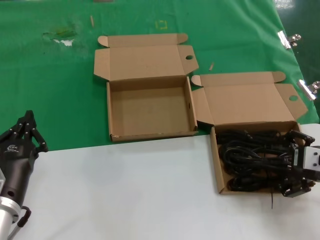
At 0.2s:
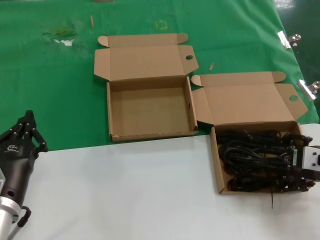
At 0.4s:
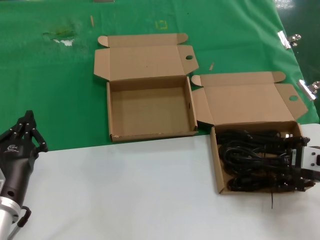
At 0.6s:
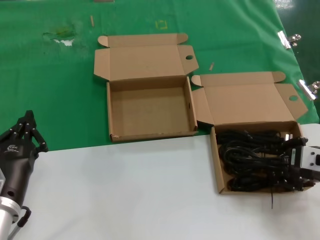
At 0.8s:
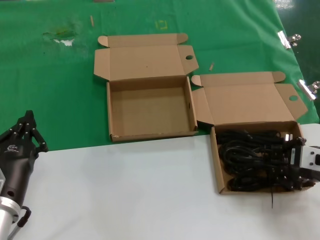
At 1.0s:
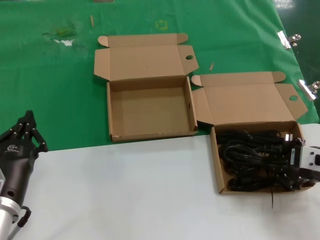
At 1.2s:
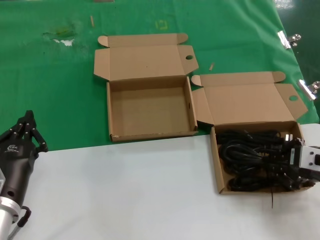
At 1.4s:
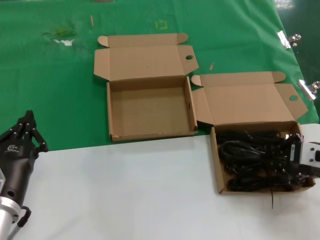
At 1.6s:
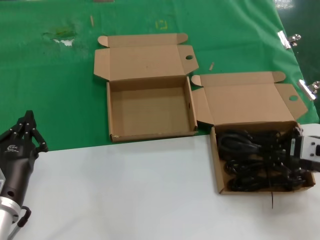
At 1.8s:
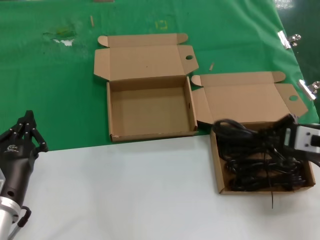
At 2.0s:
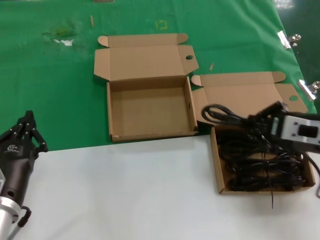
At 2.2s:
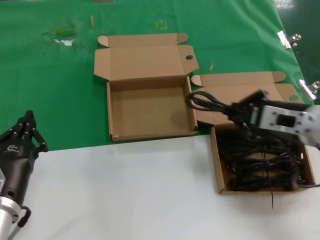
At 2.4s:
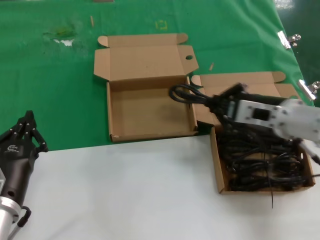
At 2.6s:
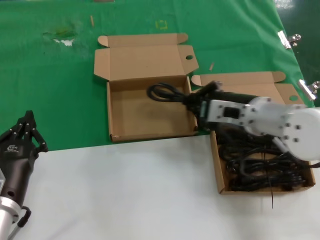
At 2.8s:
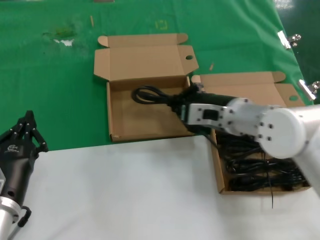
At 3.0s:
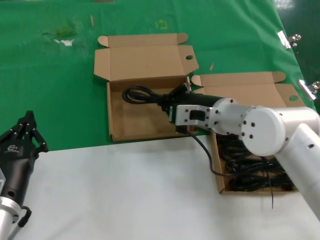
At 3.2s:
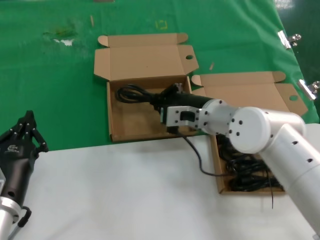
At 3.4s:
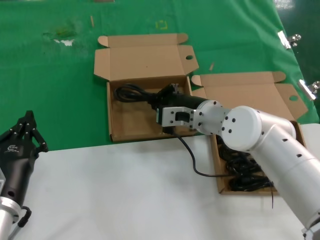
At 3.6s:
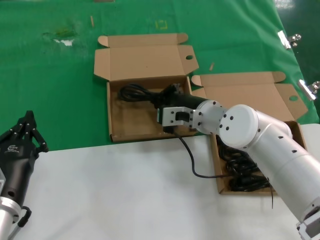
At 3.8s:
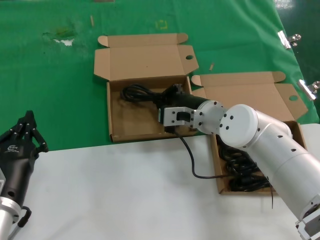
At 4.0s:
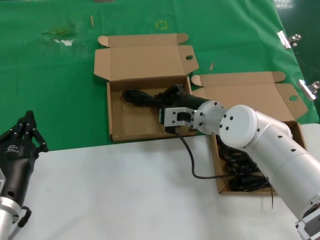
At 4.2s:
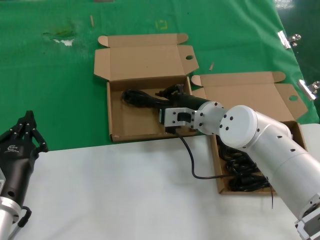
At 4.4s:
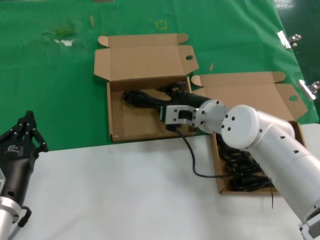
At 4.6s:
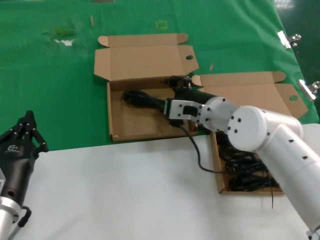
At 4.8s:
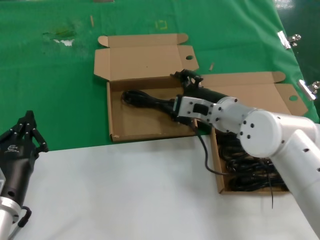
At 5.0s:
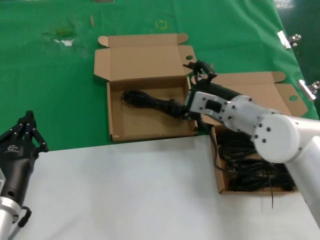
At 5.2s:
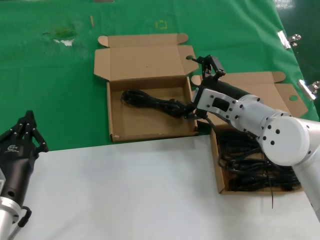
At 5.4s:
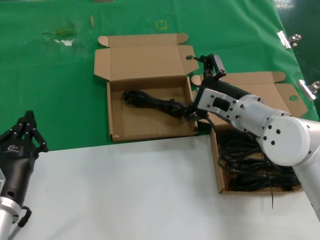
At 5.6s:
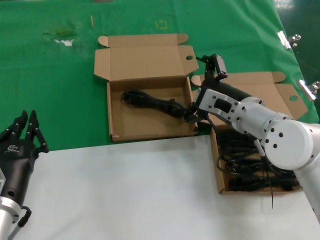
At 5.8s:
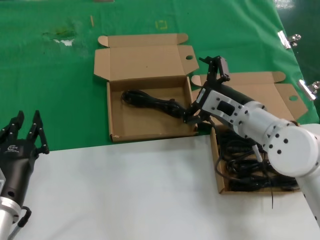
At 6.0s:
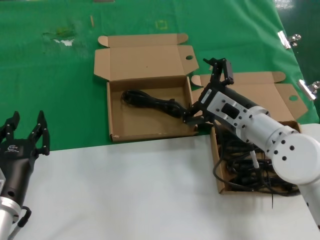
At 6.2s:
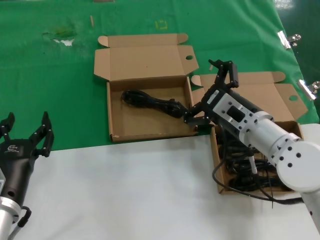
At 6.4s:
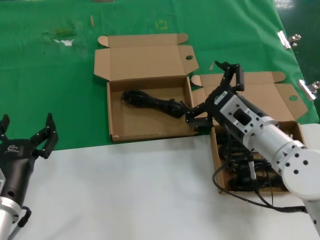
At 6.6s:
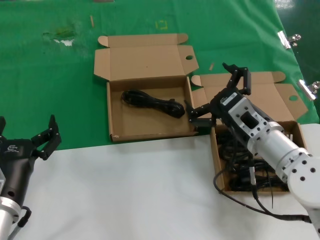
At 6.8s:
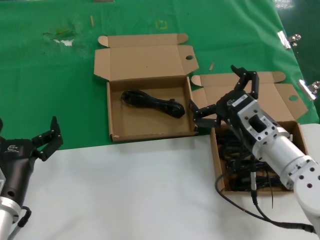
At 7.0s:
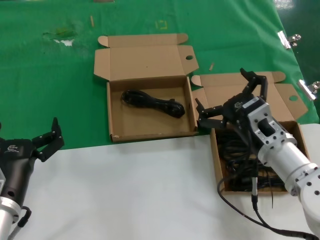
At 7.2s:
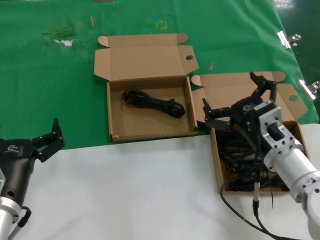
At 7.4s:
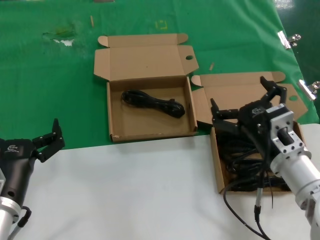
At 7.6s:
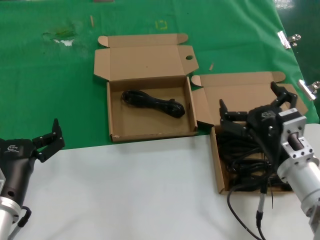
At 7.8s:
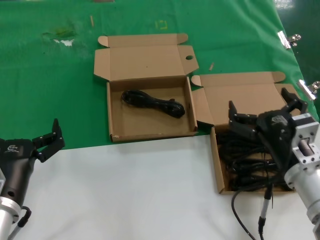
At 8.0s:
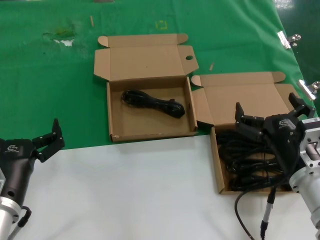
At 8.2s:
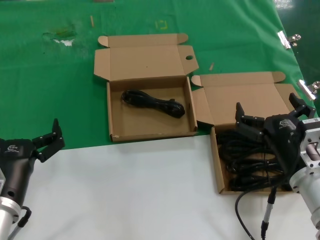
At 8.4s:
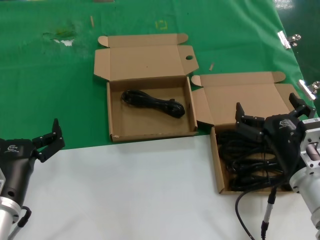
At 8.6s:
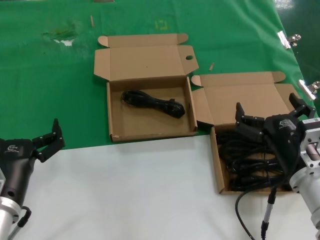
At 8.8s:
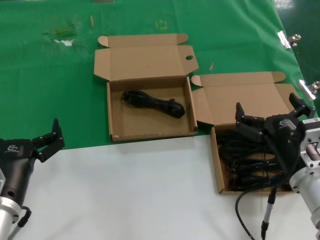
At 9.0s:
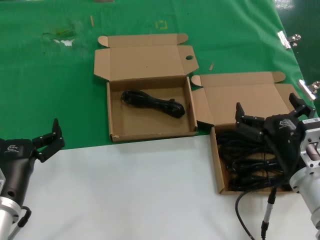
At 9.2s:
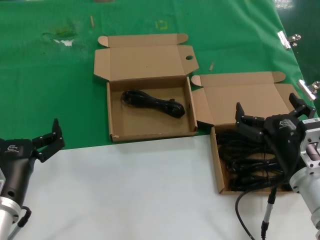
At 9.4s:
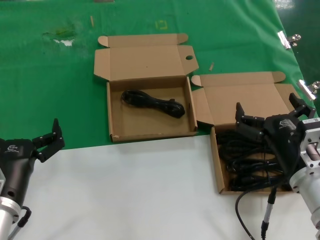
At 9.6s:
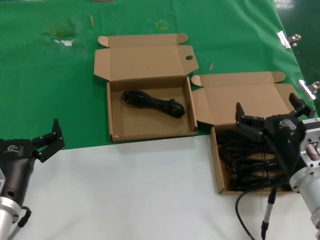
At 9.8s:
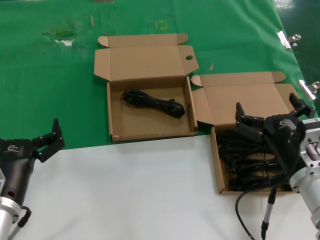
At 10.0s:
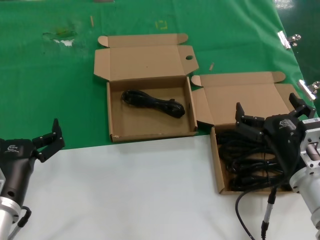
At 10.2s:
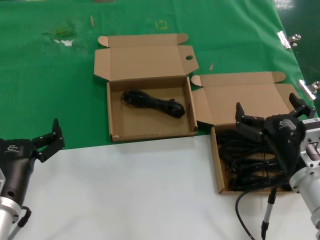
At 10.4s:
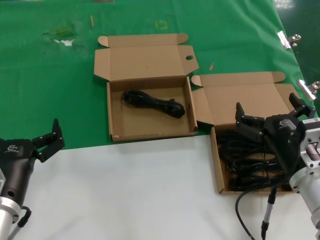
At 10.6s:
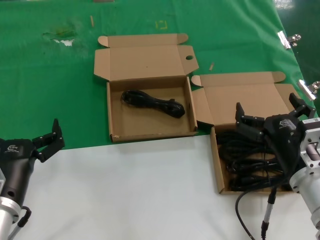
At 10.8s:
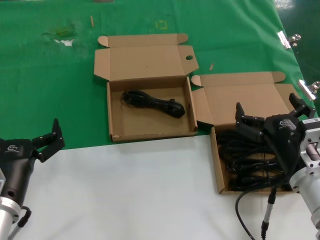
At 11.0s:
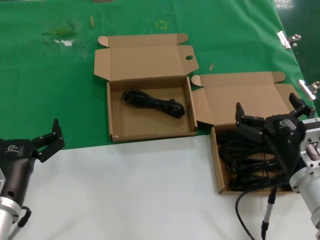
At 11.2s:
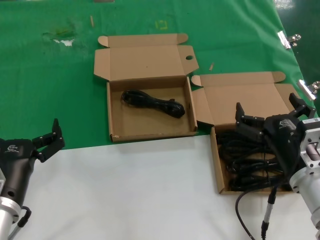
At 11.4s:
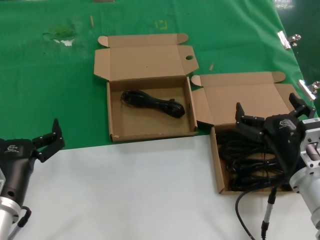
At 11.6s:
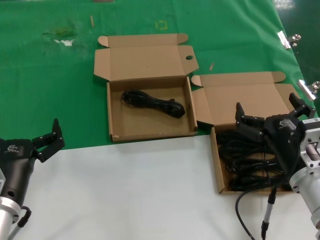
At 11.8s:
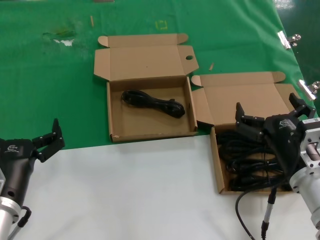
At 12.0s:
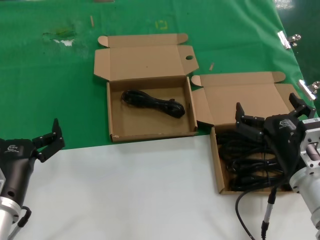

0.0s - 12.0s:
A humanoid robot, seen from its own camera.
Task of the whole recording: take the parts from the box containing them and put them into an empty box.
Step, 1.4s - 4.0s: Place the data cable in the another box.
0.0s - 1.6s: The hands make only small movements.
1.6s - 3.0s: The right hand is displaced to the left and forward by about 20 cm.
3.0s - 4.4s: The right hand changes place by about 5 cm.
4.4s - 6.0s: The right hand goes approximately 10 cm backward and to the right.
6.0s - 7.6s: The right hand shifts approximately 10 cm backward.
7.6s - 9.0s: The hands make only small movements.
9.0s - 12.0s: Neither hand changes place.

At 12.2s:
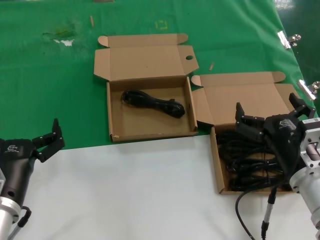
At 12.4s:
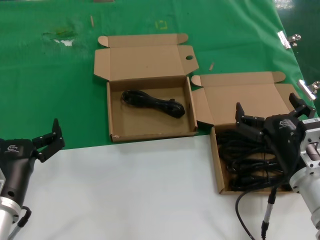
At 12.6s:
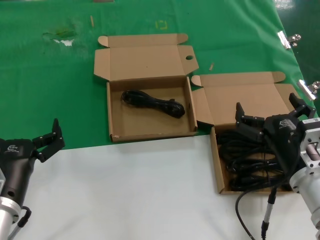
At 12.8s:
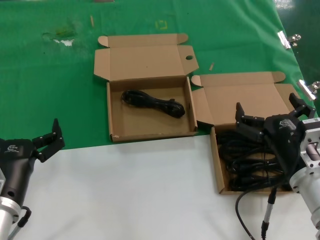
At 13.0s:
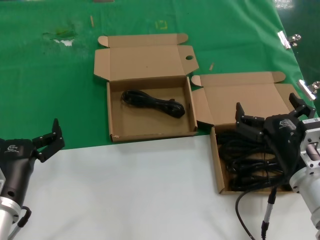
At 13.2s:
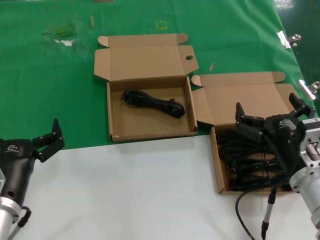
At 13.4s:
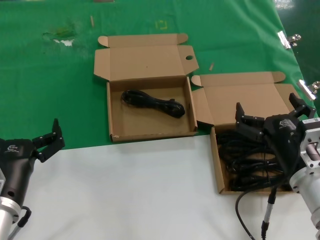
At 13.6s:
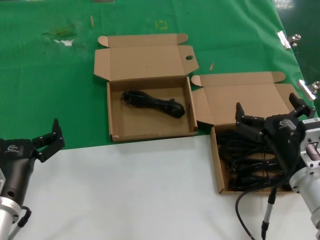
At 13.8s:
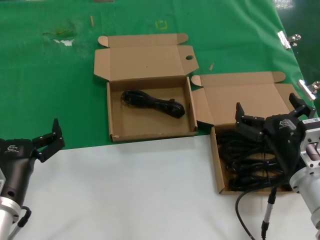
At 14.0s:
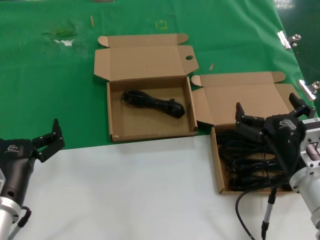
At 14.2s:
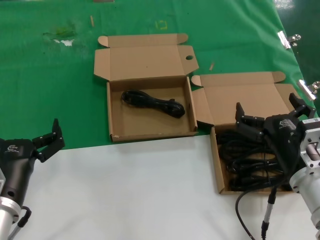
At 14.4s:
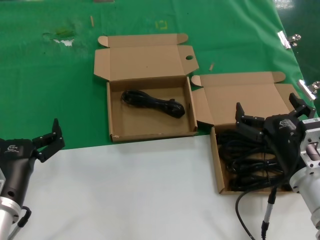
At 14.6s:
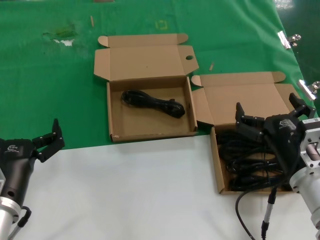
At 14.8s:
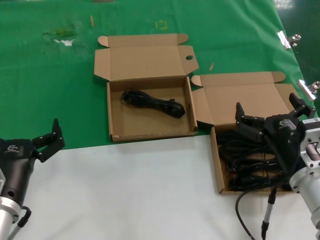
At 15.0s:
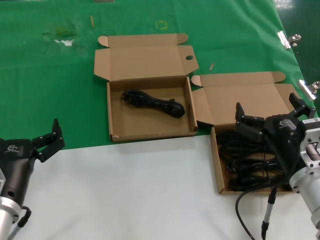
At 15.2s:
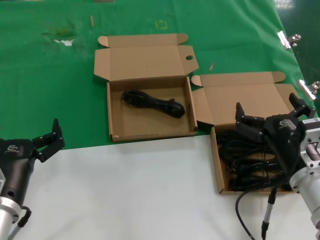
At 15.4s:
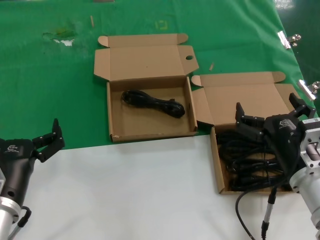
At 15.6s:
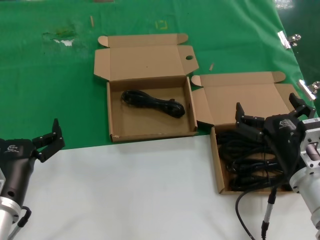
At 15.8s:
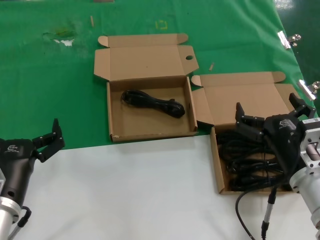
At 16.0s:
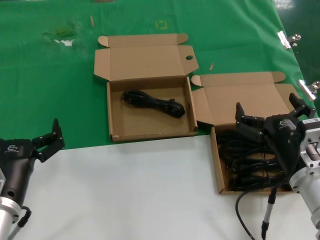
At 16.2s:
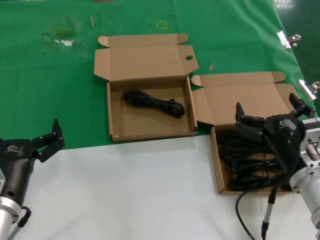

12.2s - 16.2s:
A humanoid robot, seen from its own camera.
Task of the whole recording: take the parts from the box containing them and put them into an empty box.
12.2s - 16.2s: Both hands stay about where they are.

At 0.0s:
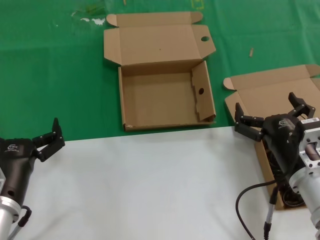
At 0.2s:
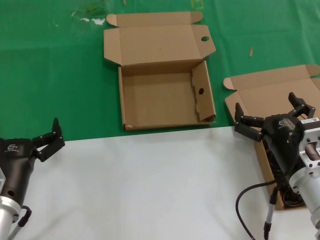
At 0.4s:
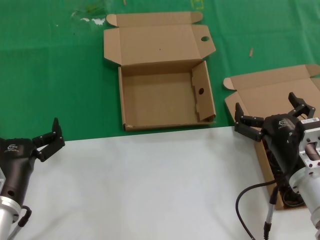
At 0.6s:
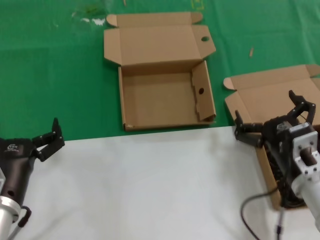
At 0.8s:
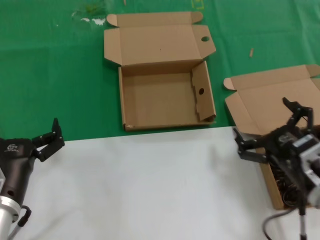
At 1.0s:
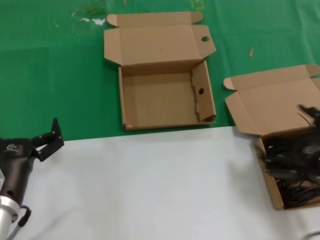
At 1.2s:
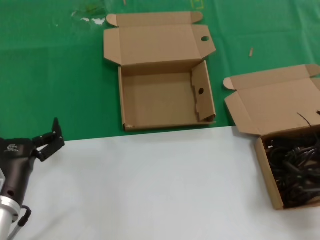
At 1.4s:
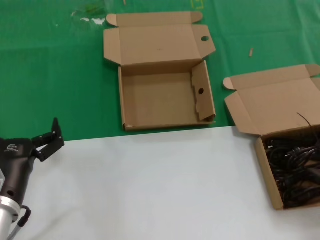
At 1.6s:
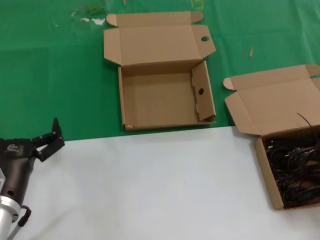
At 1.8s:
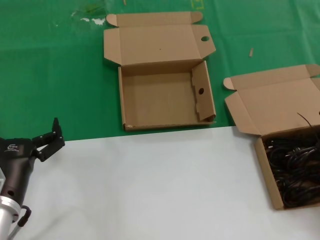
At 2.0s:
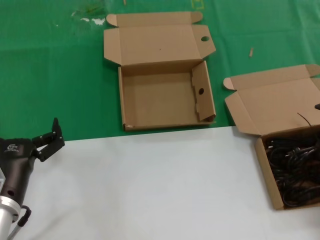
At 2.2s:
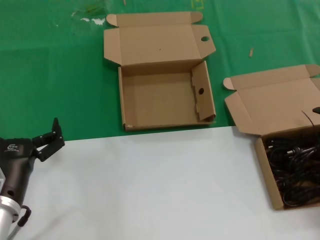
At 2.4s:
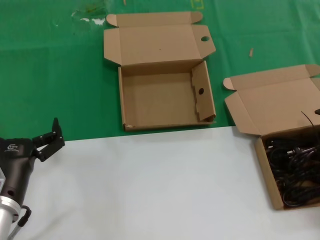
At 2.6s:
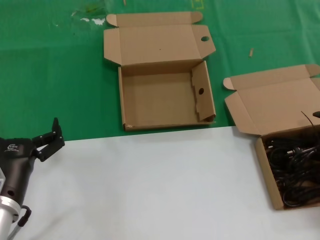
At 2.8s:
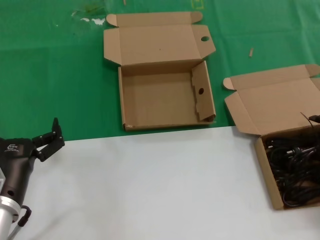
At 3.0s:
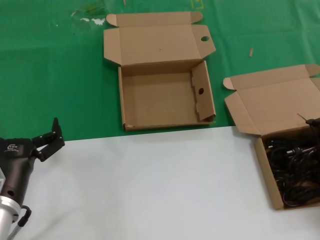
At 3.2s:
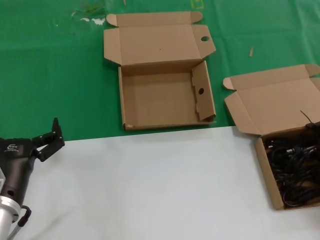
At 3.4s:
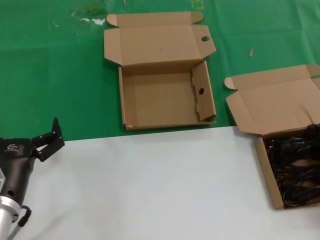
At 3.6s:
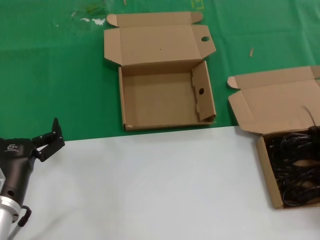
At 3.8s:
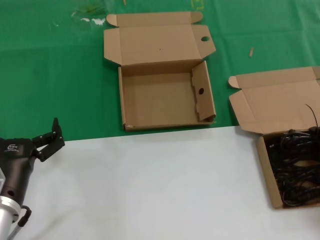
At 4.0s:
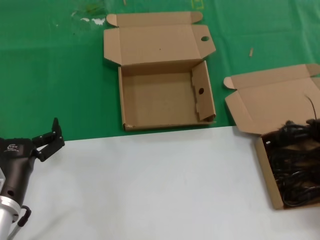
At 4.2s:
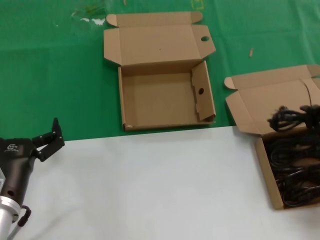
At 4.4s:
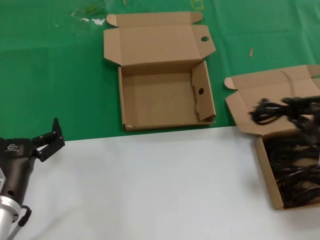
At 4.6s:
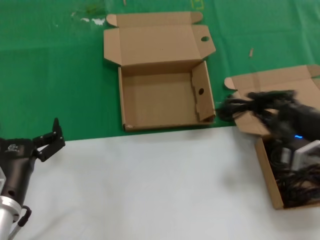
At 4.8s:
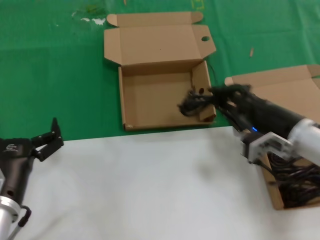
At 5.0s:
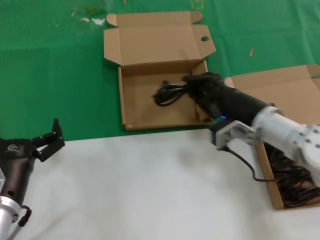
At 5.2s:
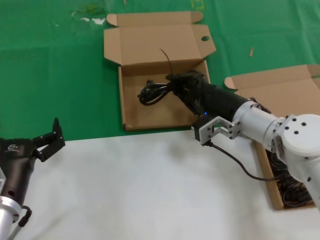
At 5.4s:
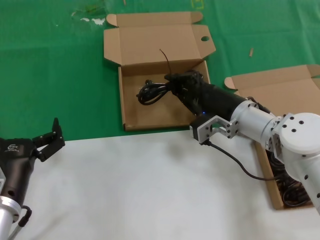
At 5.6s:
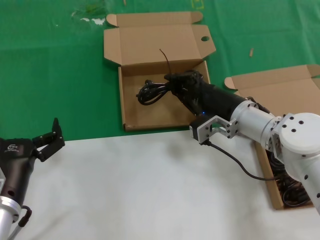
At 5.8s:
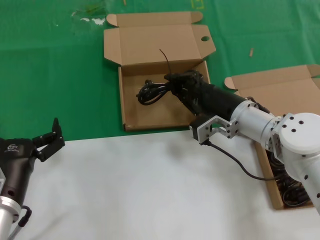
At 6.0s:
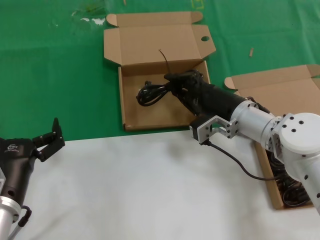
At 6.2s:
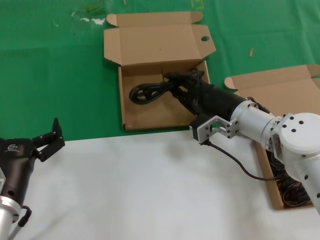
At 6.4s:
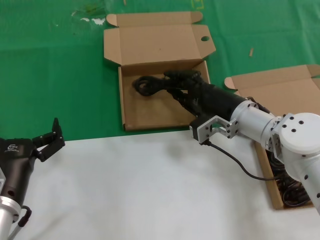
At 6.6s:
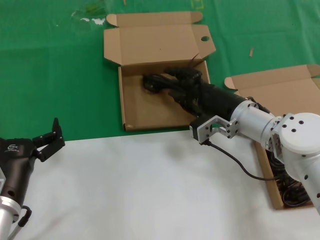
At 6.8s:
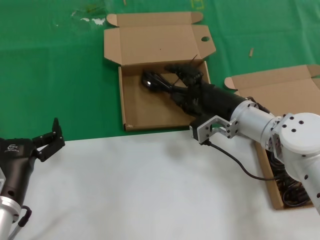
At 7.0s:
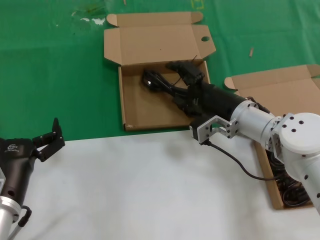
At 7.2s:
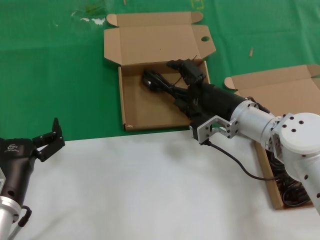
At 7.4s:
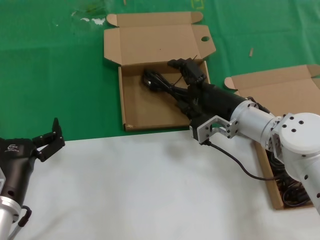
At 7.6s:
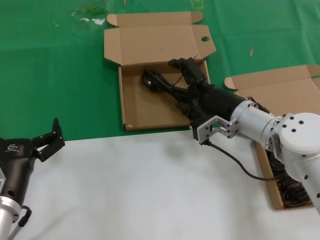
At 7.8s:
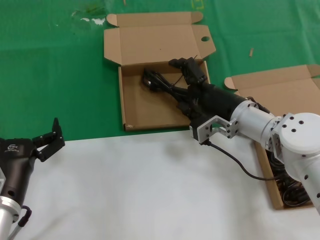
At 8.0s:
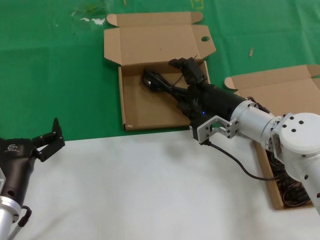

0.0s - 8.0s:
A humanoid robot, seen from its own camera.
Task of the whole recording: take the parts from the box containing them and put them into an empty box.
Step, 0.0s - 3.6s: Grasp the data cable.
Step, 3.8s - 7.8s: Place the data cable in the another box.
0.0s - 1.6s: The right hand travels to the right by some 20 cm.
3.2s - 4.8s: The right hand goes approximately 15 cm to the left.
4.8s - 6.4s: The right hand is displaced forward and to the left by about 15 cm.
6.4s - 8.0s: The two hands keep their place.
